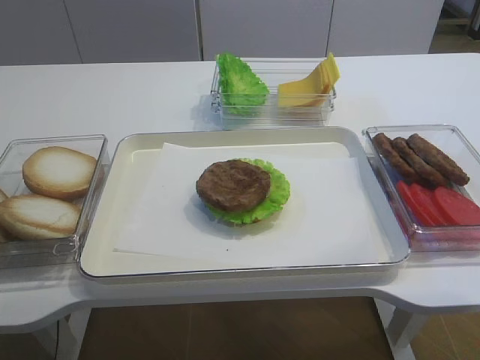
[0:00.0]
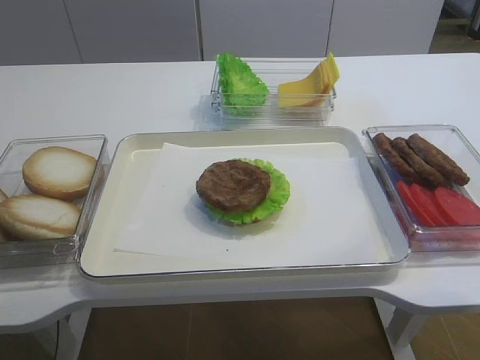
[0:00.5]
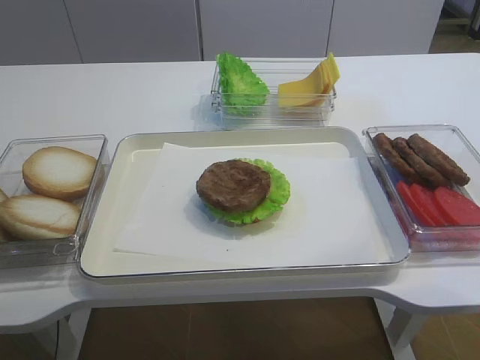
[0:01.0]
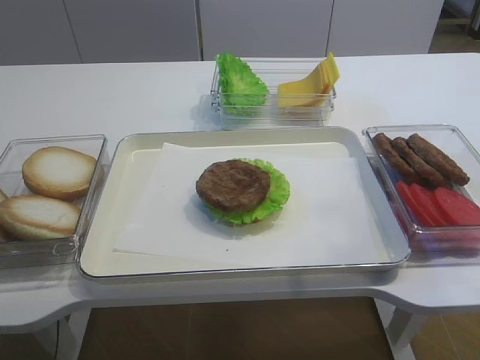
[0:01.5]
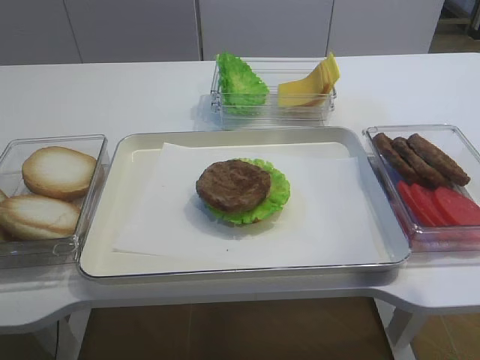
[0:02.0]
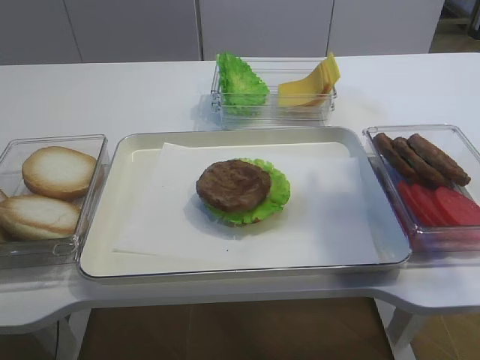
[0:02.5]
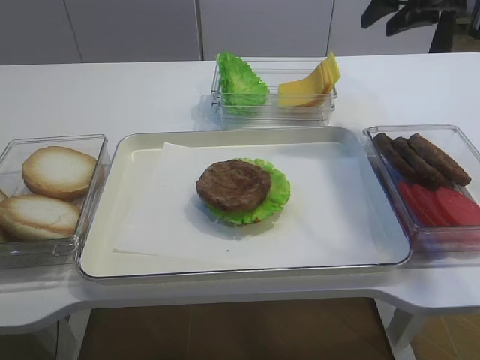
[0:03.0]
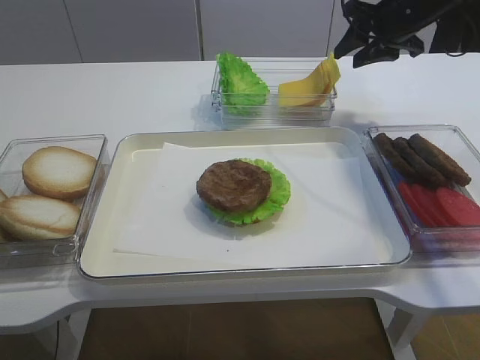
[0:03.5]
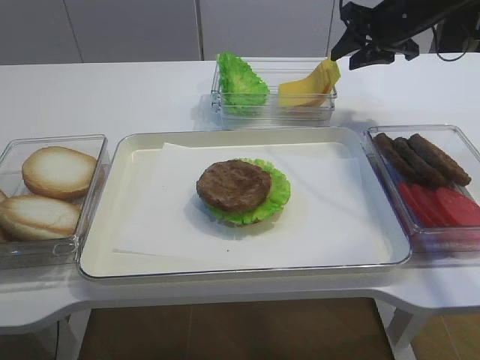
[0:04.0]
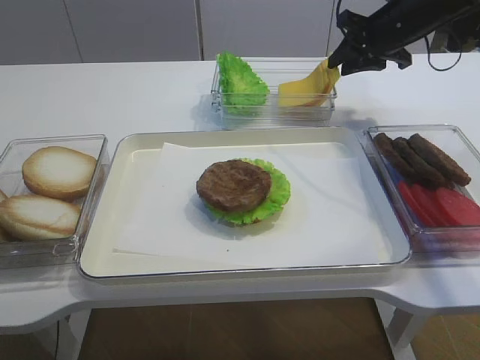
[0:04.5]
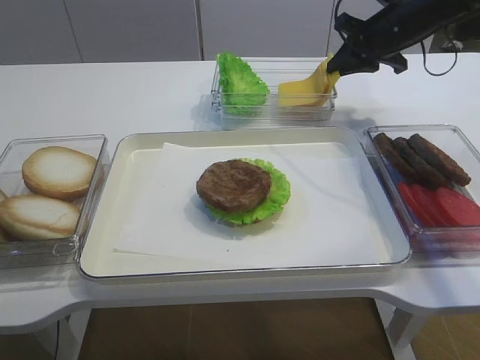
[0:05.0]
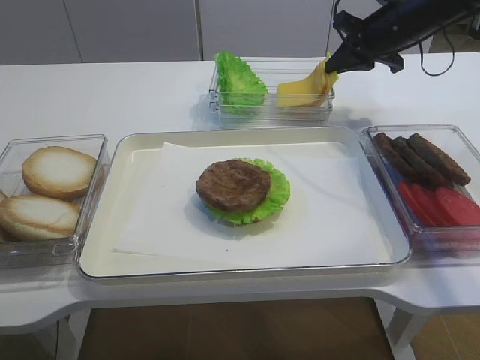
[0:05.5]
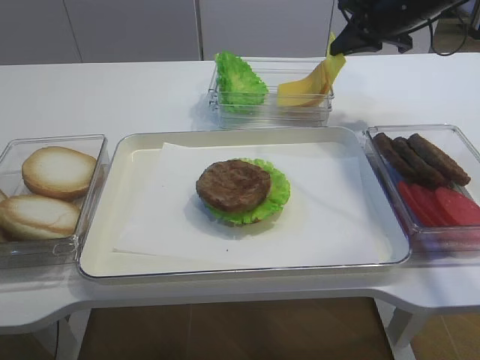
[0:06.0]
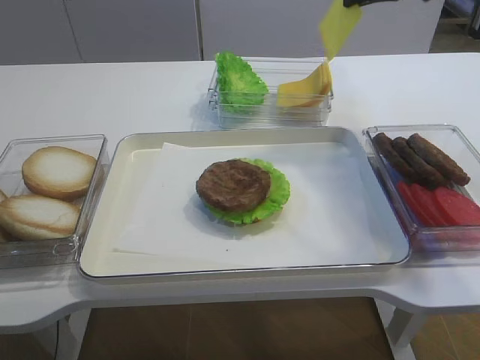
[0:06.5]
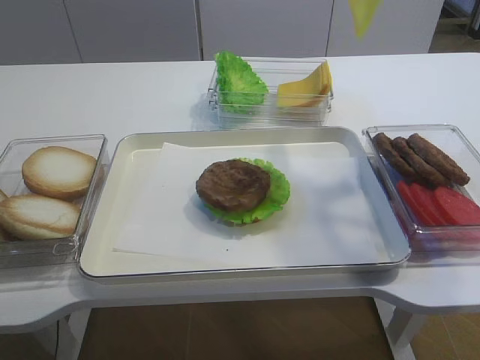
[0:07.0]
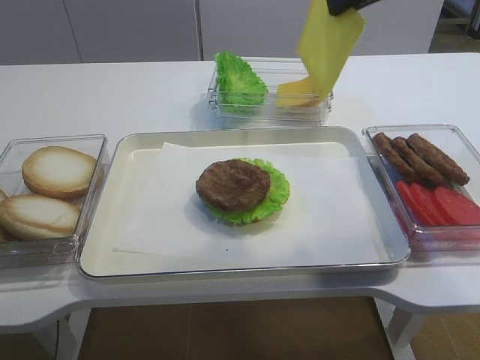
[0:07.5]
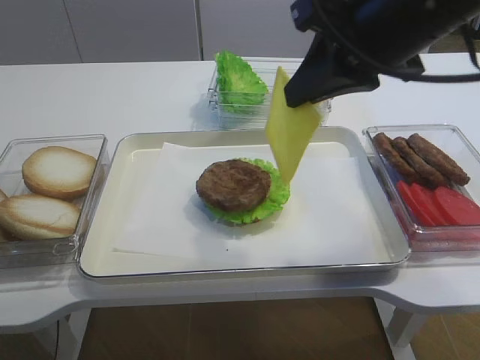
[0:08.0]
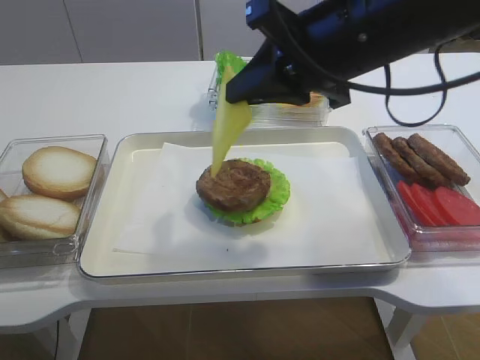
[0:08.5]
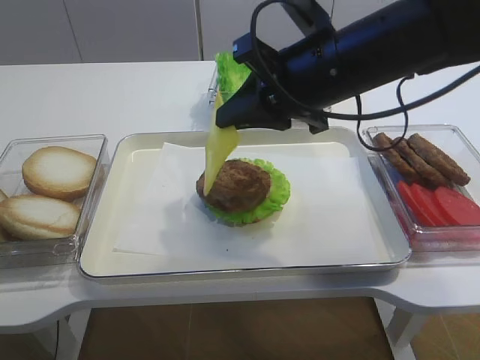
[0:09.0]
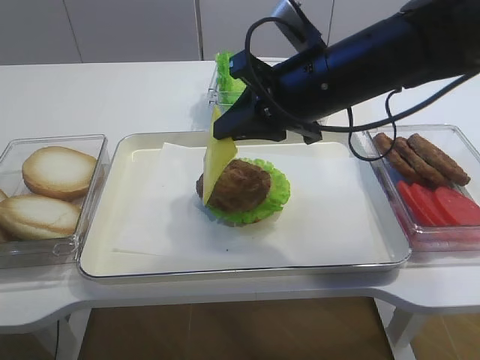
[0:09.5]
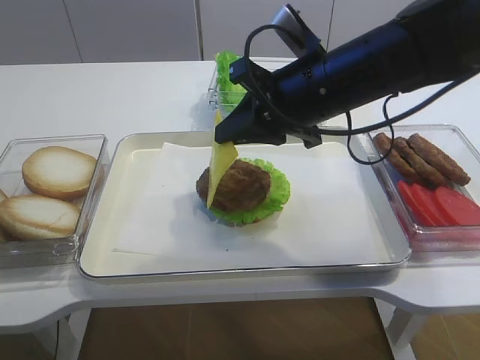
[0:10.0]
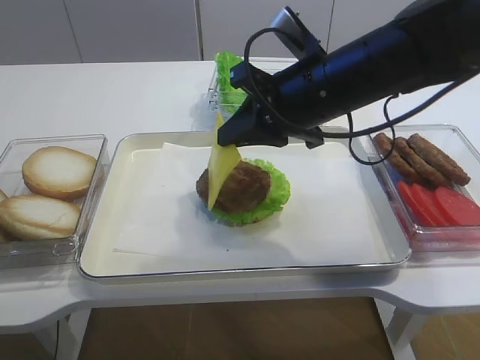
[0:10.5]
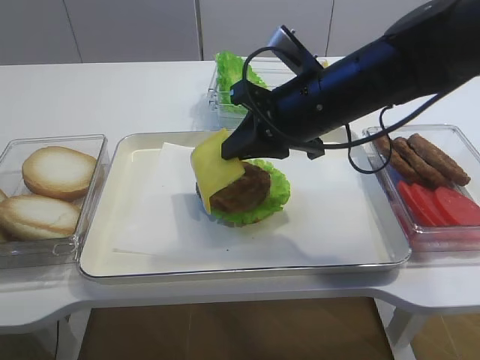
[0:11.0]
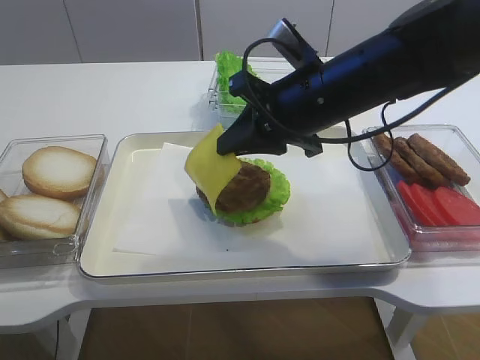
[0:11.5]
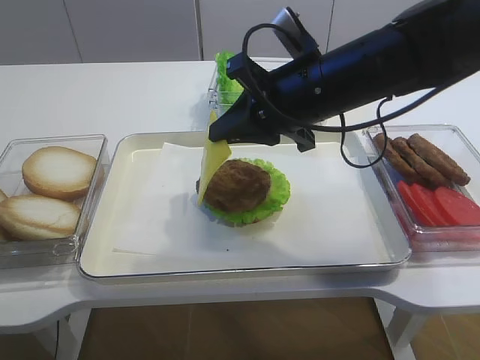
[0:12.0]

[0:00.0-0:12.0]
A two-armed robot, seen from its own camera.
Step, 0:00.0 to 0:06.0: Pick up the cheese slice with the right gripper.
0:02.0 to 0:04.0: The right gripper is displaced forward and downward by about 35 cm.
0:04.0 to 0:06.0: The right gripper closes its fingers.
0:06.0 to 0:08.0: The right gripper goes some 25 cm backward.
0:08.0 to 0:10.0: The right gripper is displaced downward by some 10 cm.
0:10.0 to 0:12.0: The grippers stay close to where they were, moving slightly.

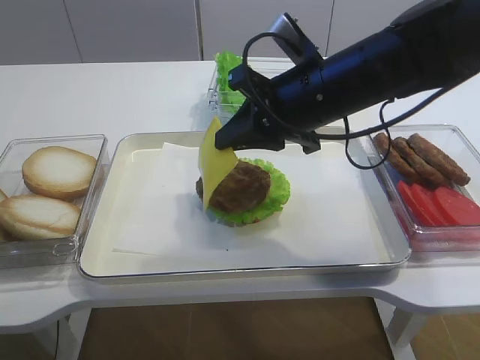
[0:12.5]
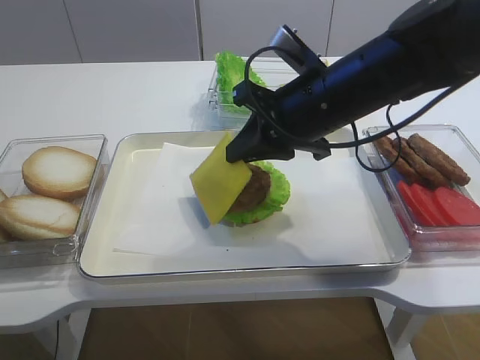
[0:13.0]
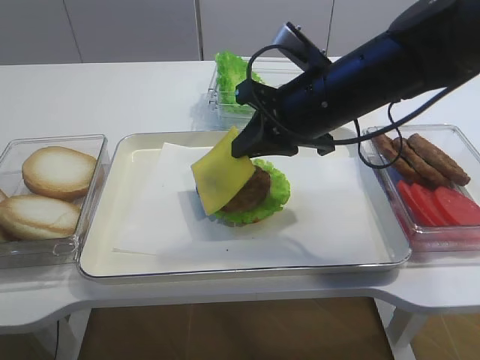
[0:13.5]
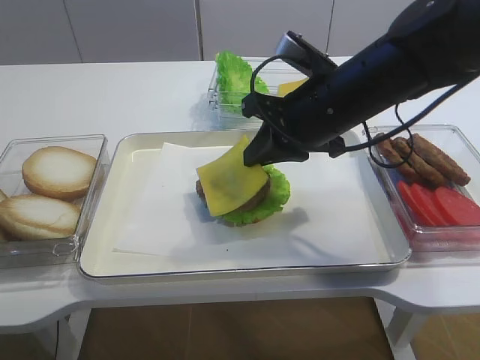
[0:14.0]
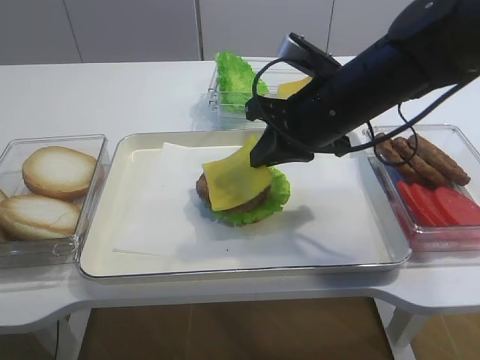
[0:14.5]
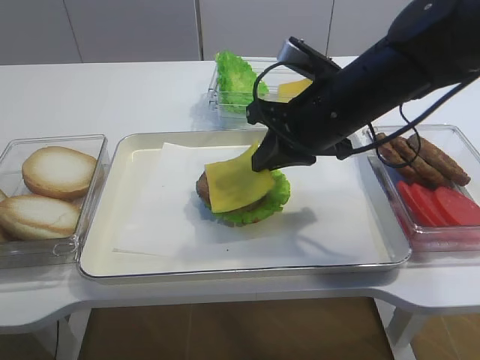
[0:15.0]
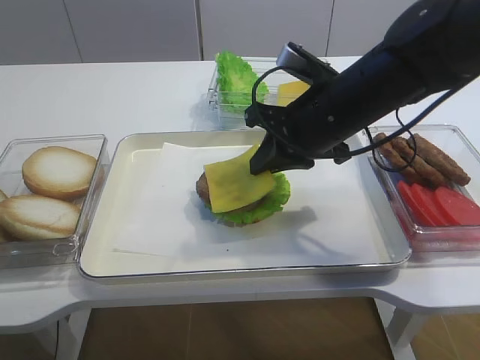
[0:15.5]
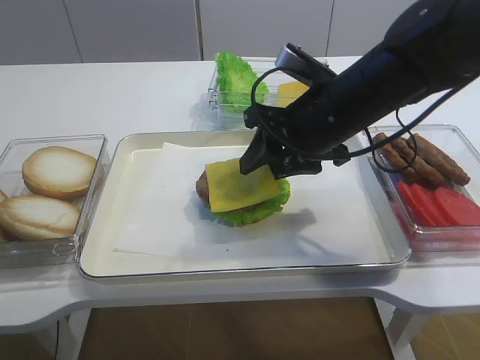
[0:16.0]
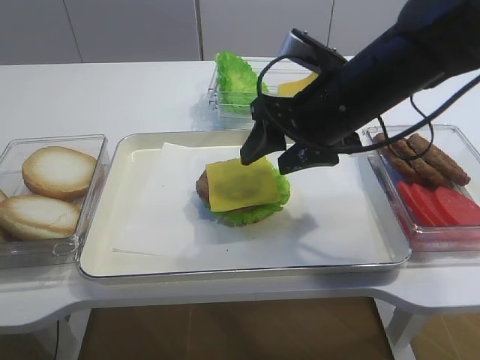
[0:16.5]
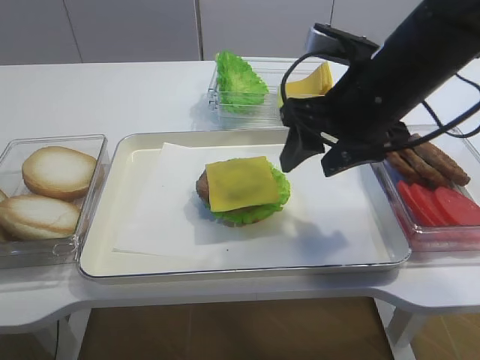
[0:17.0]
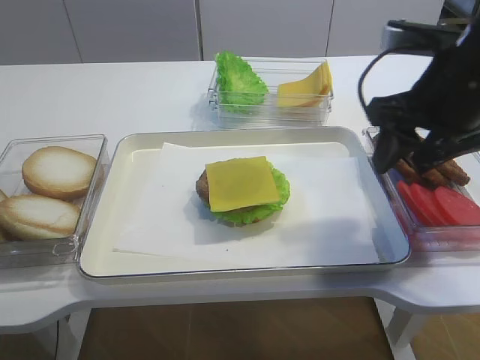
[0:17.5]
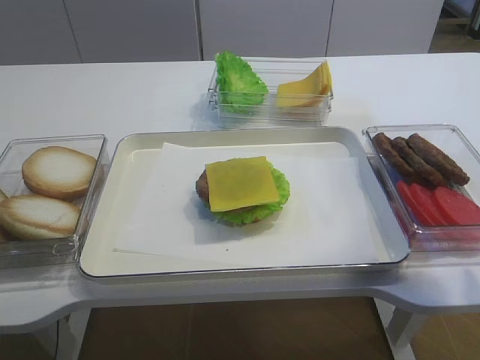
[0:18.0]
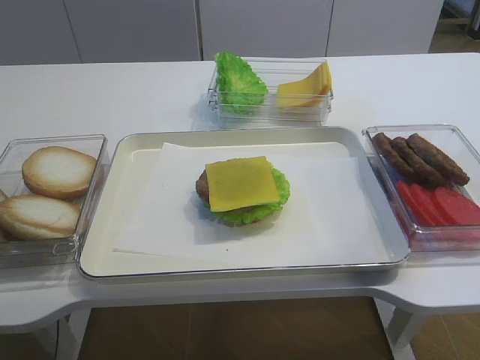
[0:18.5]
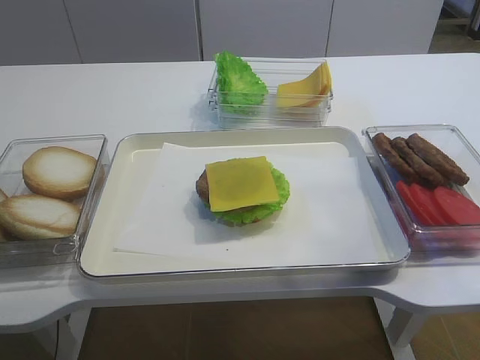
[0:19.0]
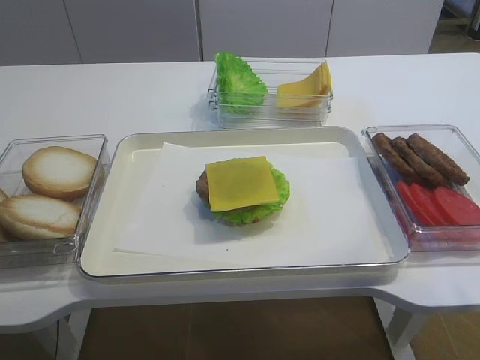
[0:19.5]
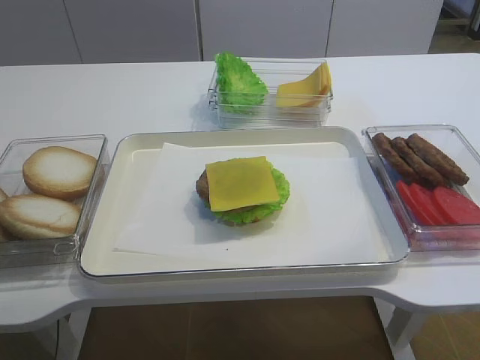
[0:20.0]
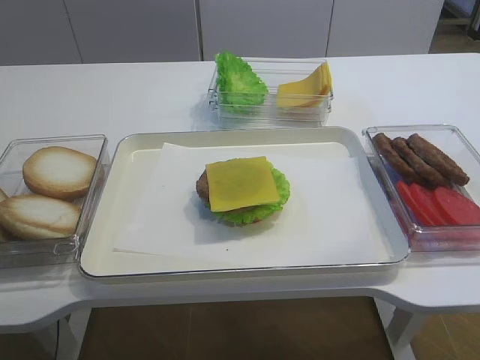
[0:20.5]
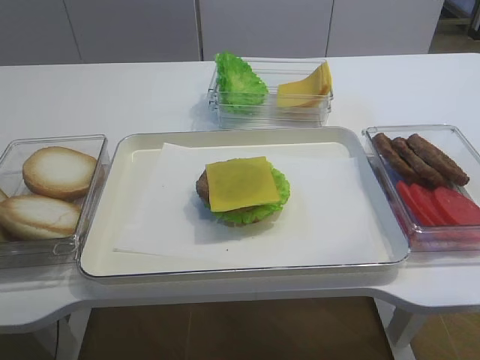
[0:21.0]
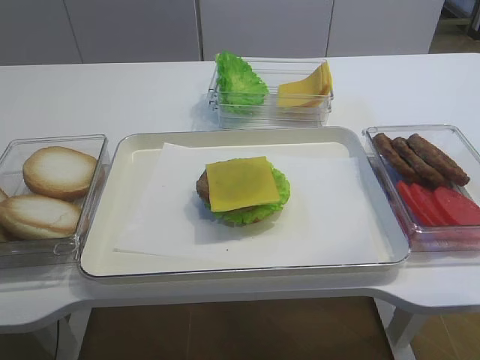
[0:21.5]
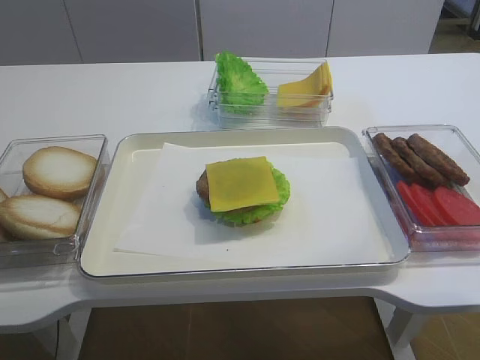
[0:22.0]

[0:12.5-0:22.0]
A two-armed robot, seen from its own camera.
Step, 0:12.5 to 0:16.5: Place the cheese slice on the cutlet with the right gripper.
0:12.5 to 0:14.5: The grippers move only a little.
0:14.5 to 0:16.5: The right gripper opens.
0:16.5 to 0:18.0: The right gripper is displaced to the right and upward by some 20 cm.
0:18.0 to 0:20.0: The right gripper heads backward, covering some 30 cm.

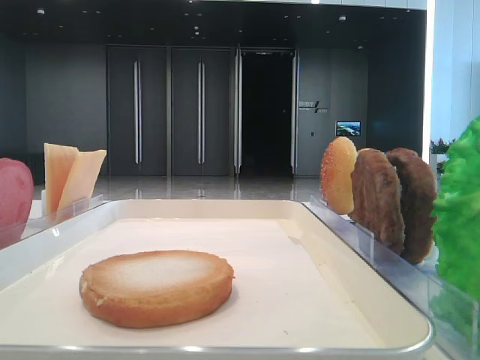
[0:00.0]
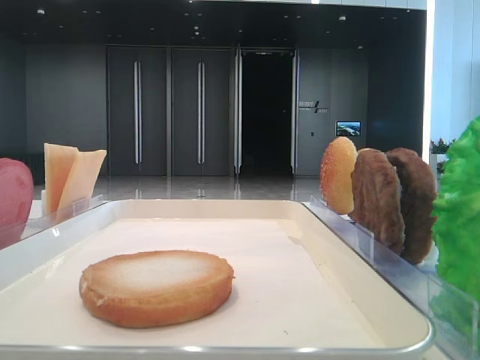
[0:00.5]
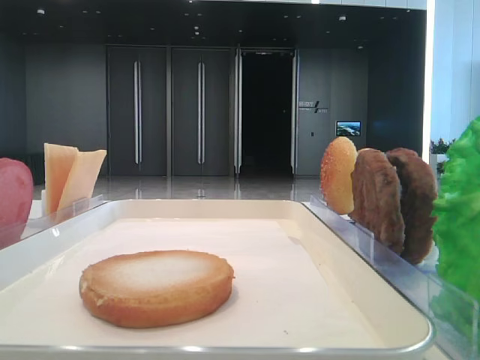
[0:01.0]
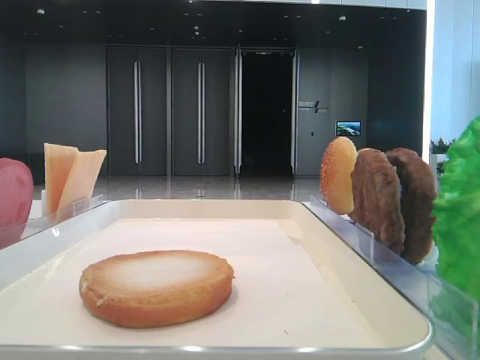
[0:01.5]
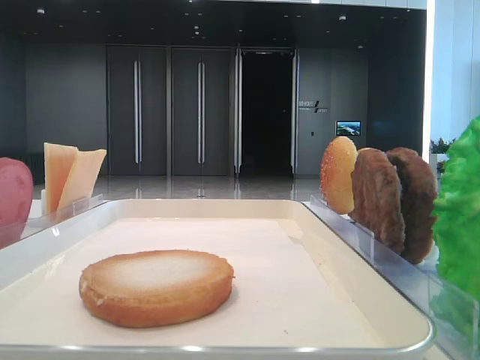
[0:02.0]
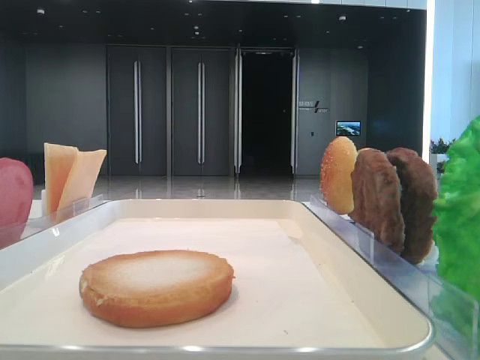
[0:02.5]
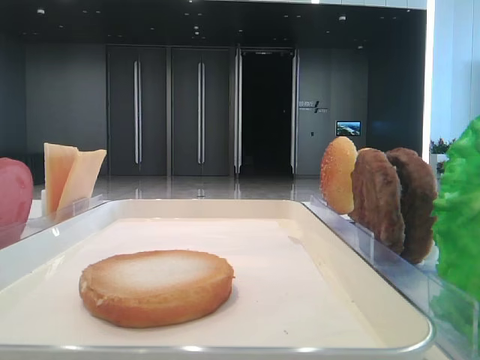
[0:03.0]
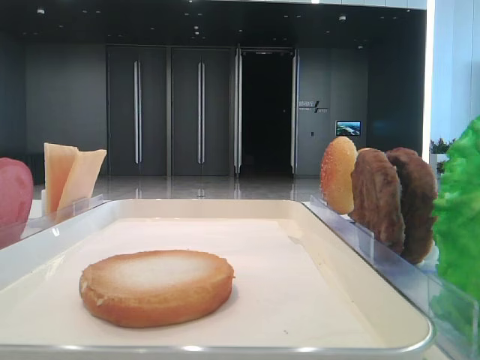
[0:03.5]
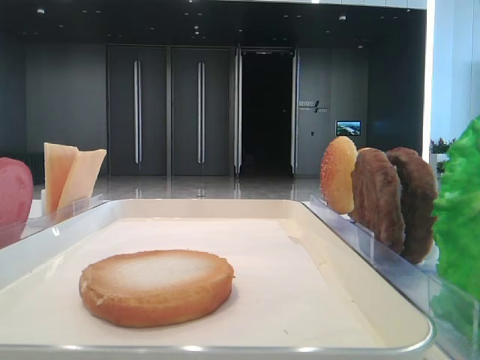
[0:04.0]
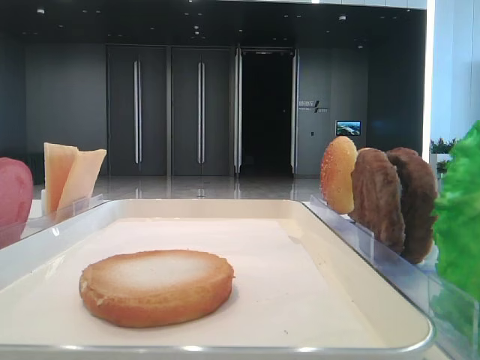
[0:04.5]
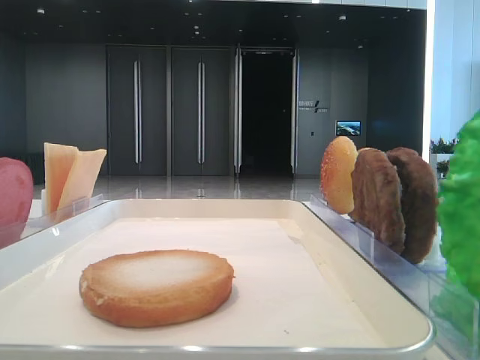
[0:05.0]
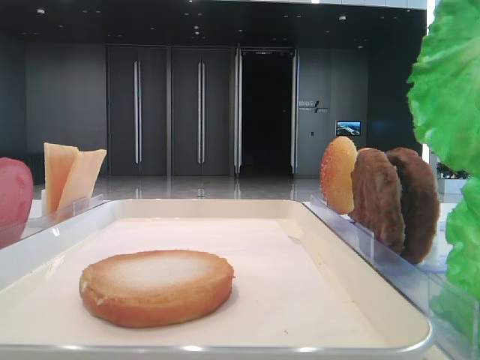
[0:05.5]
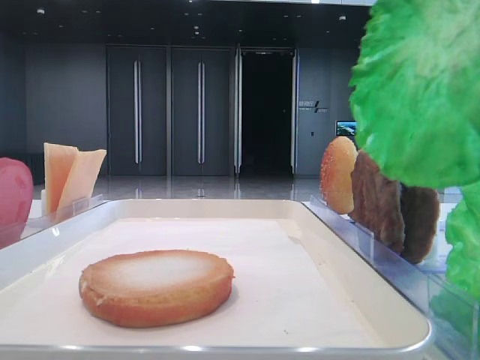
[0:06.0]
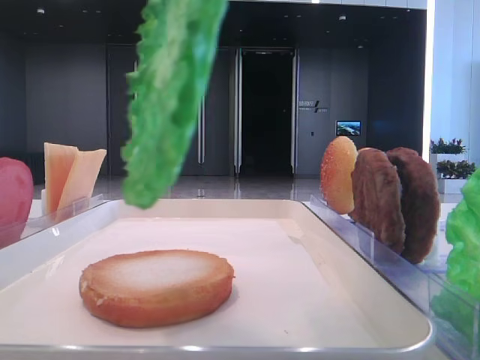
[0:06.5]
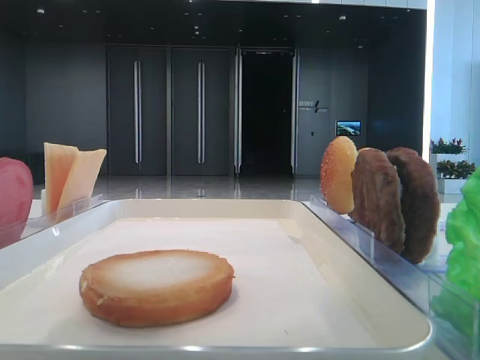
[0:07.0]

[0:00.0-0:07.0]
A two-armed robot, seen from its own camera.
0:03.5 to 0:05.0: The right gripper closes its fingers.
0:05.0 to 0:07.0: The right gripper moves to the left, approximately 15 cm.
